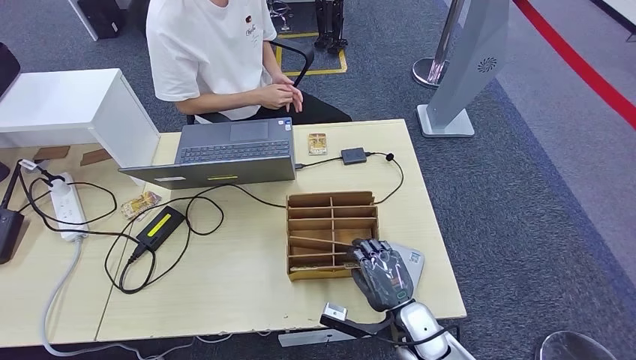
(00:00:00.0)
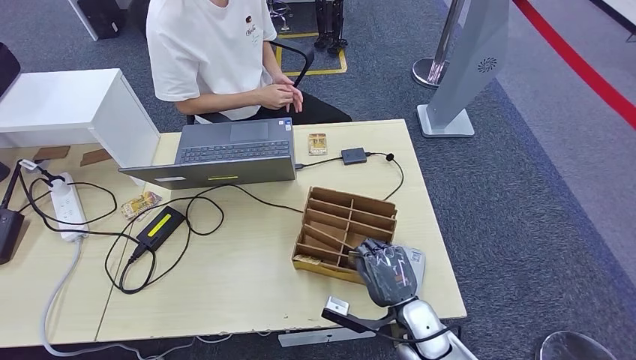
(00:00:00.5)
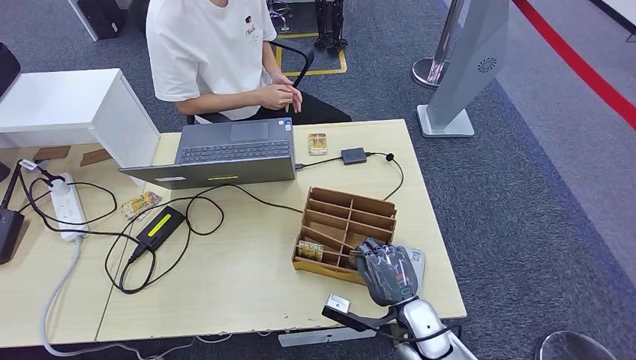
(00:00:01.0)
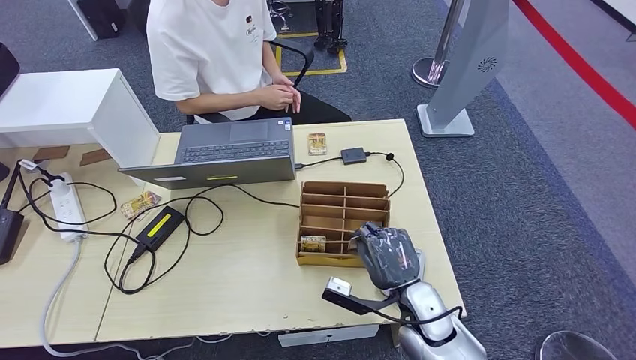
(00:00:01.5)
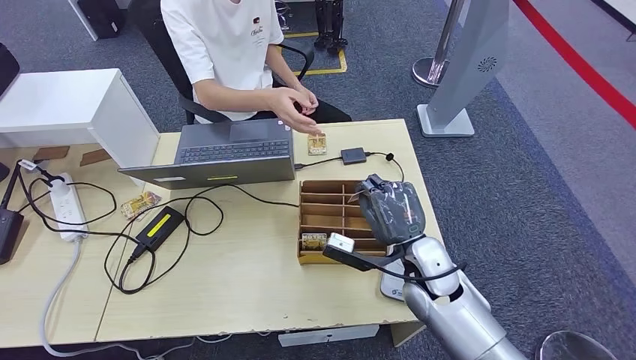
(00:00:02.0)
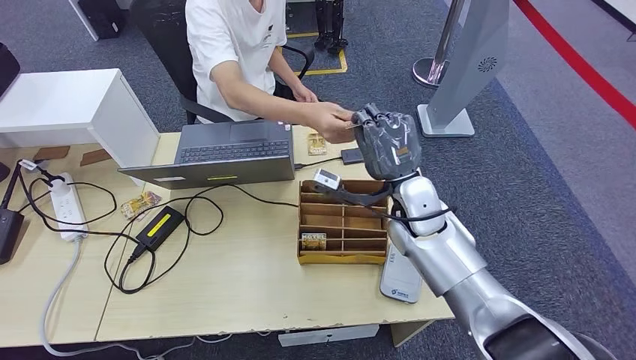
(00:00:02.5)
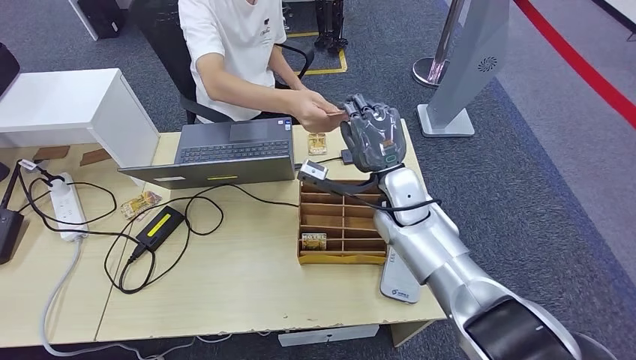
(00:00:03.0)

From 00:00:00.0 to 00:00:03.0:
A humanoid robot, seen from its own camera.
Step, from 00:00:01.5 to 00:00:03.0: Hand the room key to the person.
From 00:00:00.0 to 00:00:01.5: The hands move only a little.
From 00:00:01.5 to 00:00:03.0: The right hand moves forward and upward, about 20 cm.
